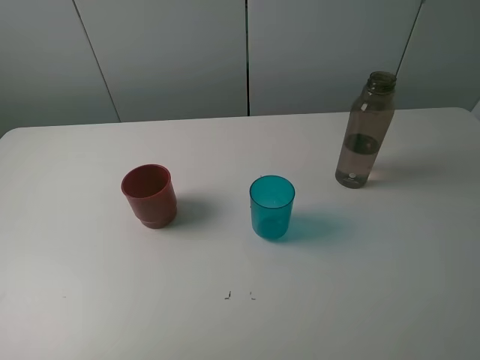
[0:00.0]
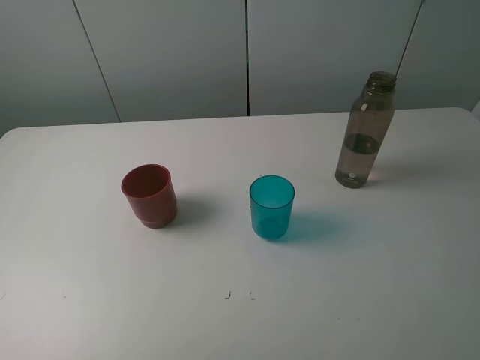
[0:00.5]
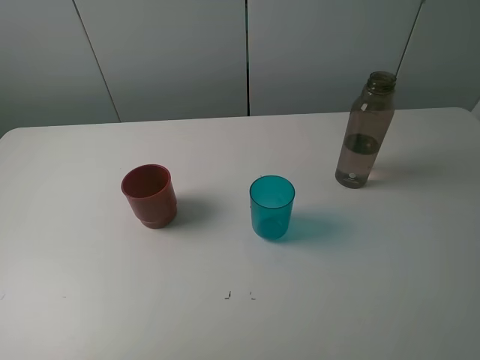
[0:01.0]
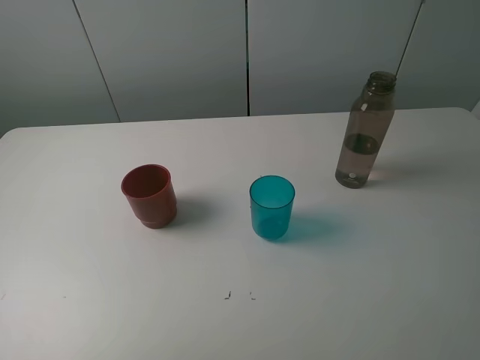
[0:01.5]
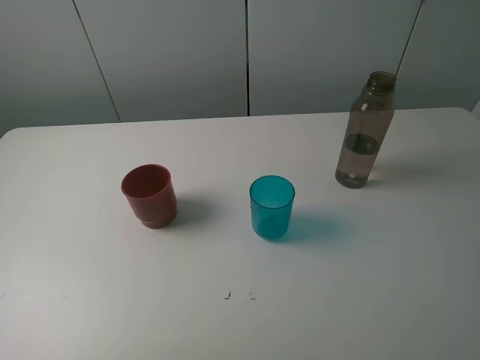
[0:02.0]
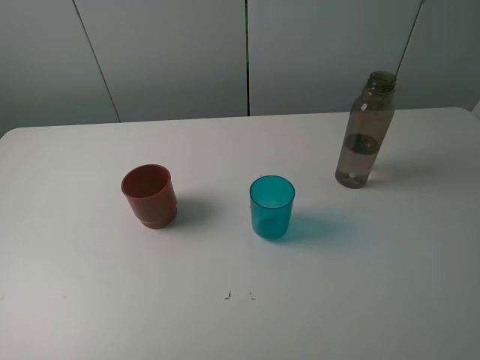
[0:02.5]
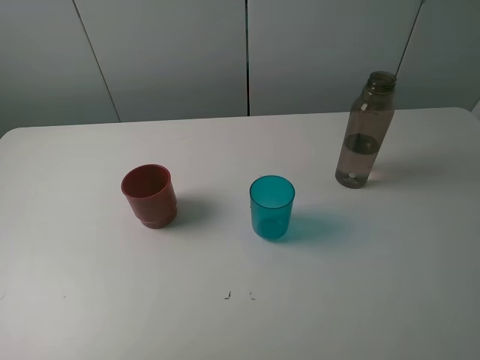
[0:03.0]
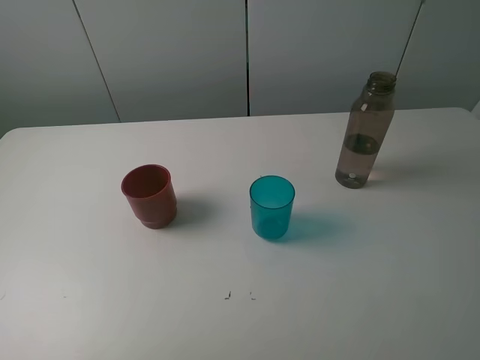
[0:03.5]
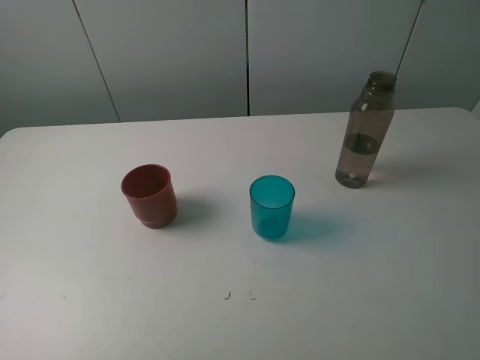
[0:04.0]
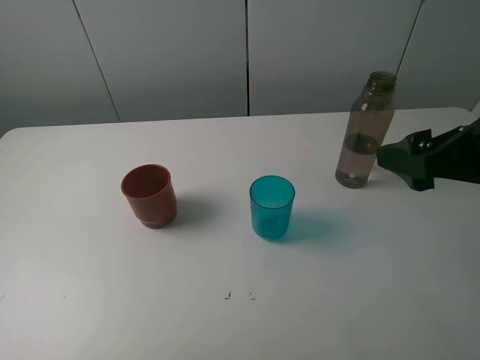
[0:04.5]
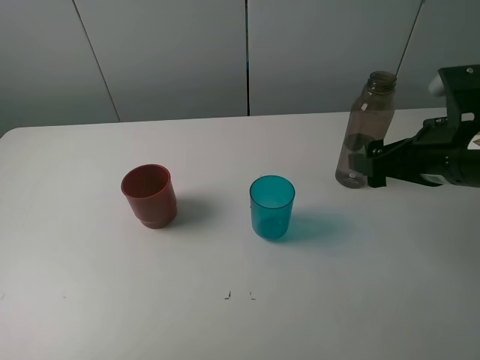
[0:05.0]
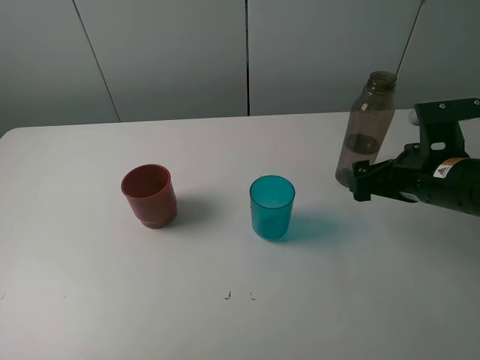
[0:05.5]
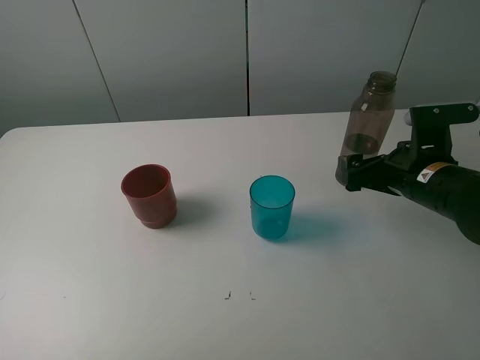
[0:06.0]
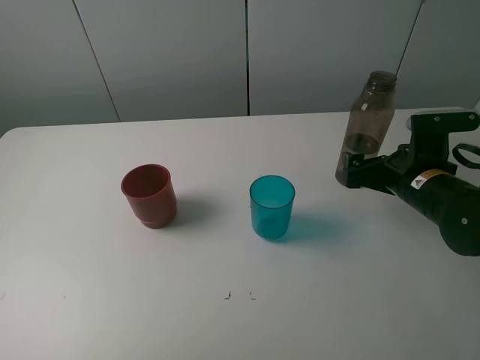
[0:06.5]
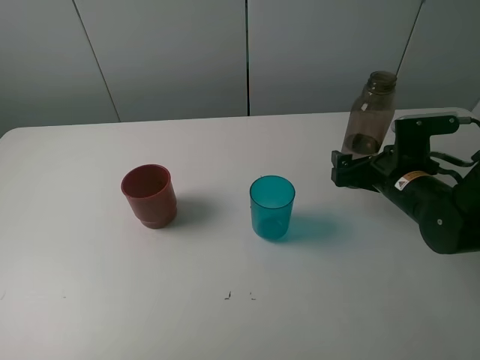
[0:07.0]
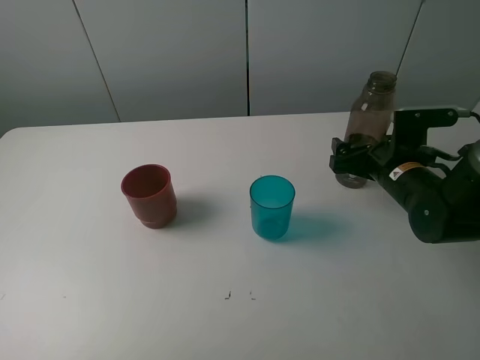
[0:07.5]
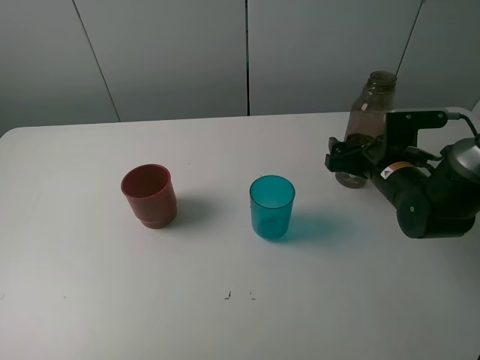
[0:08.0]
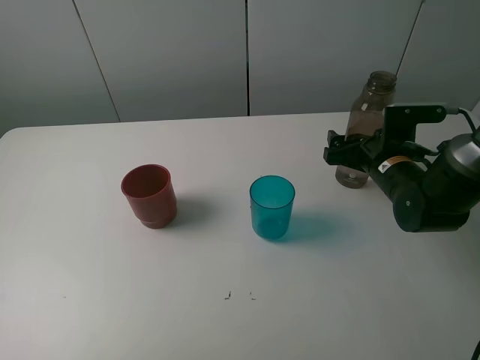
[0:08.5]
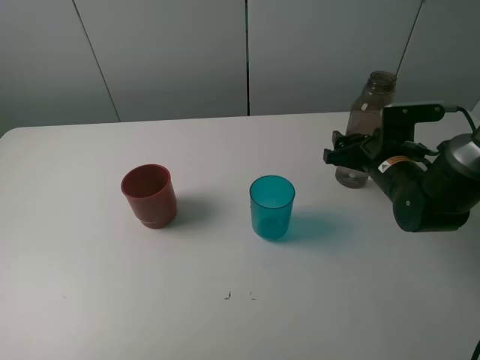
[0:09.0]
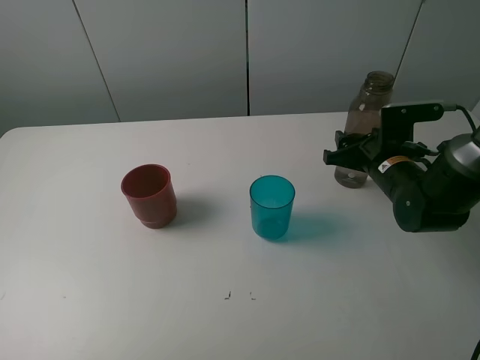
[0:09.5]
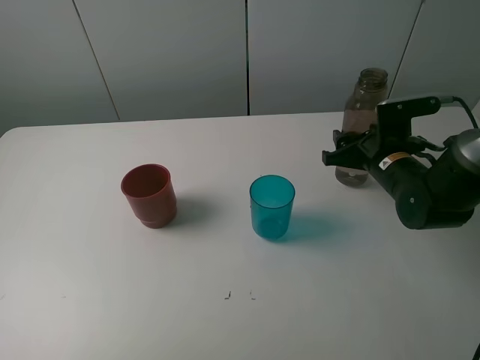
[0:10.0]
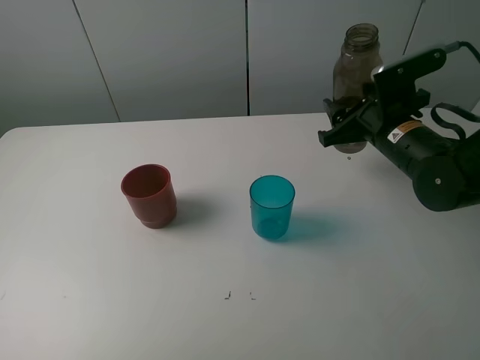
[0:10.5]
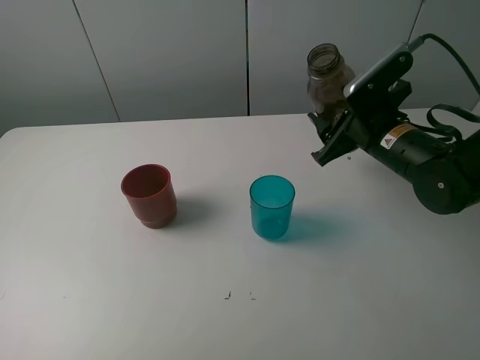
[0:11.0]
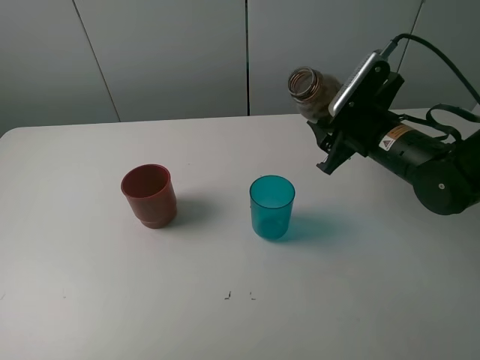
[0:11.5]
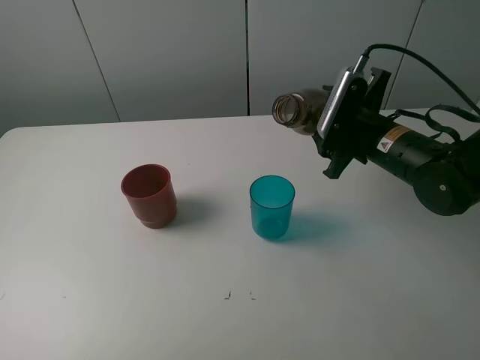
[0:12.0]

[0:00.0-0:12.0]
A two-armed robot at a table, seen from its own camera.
Task of the whole recording: pick up the bottle and pour water into the cup, then pick up the cup containing water and pour it into another cup.
Step, 0:00.0 to 0:09.0: Grasp the brown bottle with the right gripper.
0:00.0 to 0:02.0: The two grippers keep their place.
0:04.0 to 0:06.0: The right gripper moves downward and forward, some 25 cm.
0:06.0 to 0:08.0: The right gripper goes approximately 5 cm forward.
0:08.0 to 0:10.0: The right gripper closes its fingers.
0:10.0 to 0:12.0: The right gripper moves roughly 5 cm.

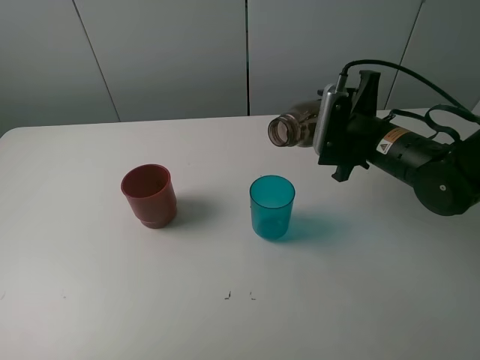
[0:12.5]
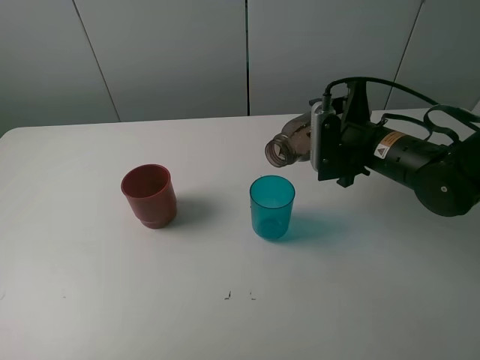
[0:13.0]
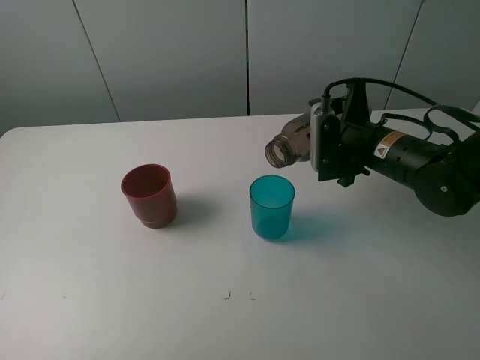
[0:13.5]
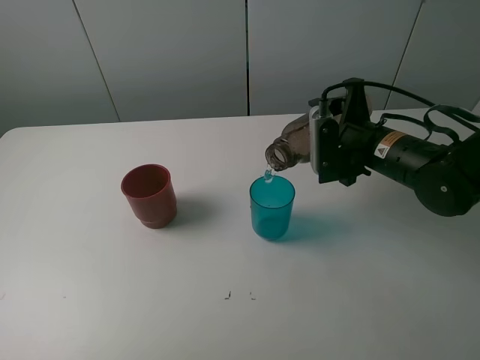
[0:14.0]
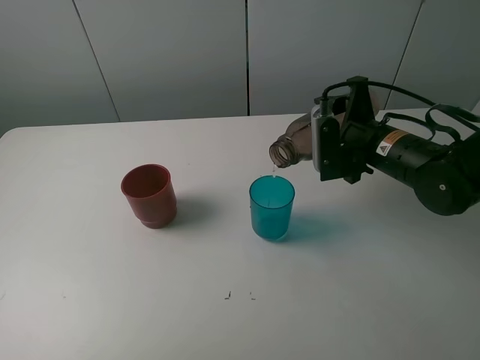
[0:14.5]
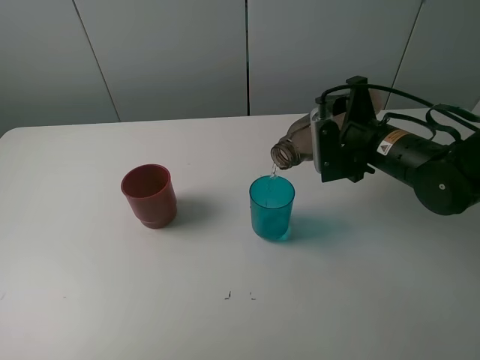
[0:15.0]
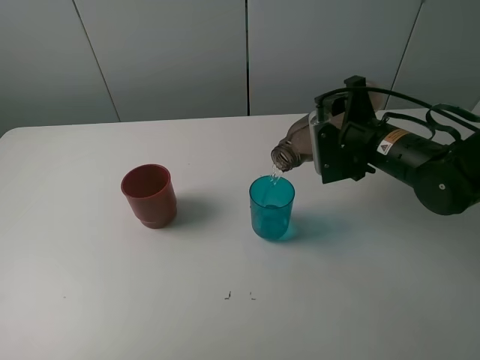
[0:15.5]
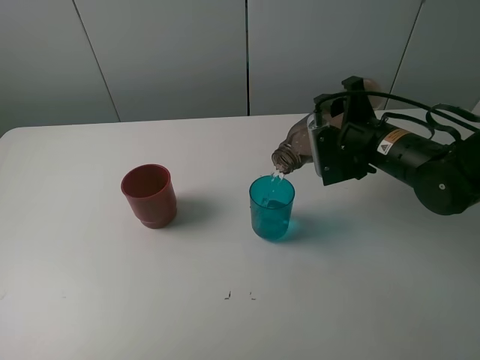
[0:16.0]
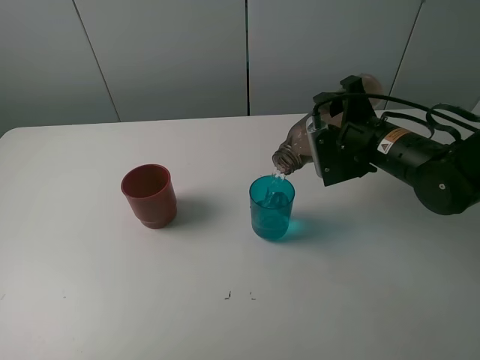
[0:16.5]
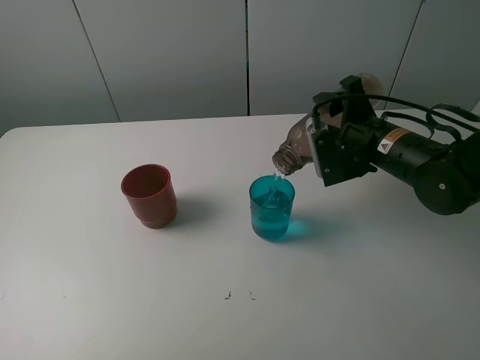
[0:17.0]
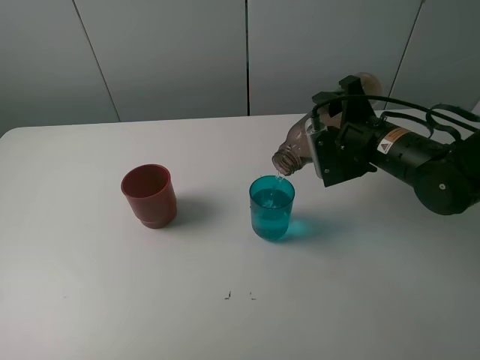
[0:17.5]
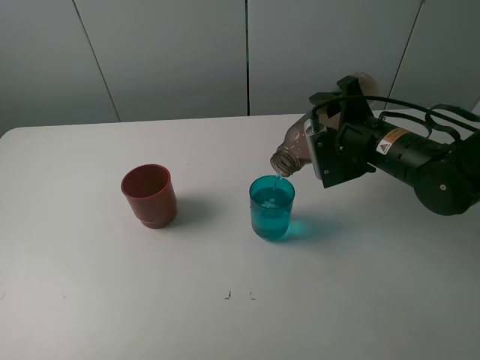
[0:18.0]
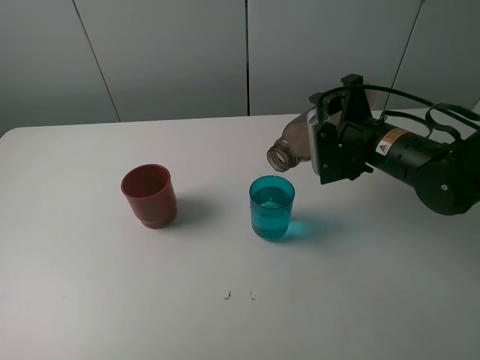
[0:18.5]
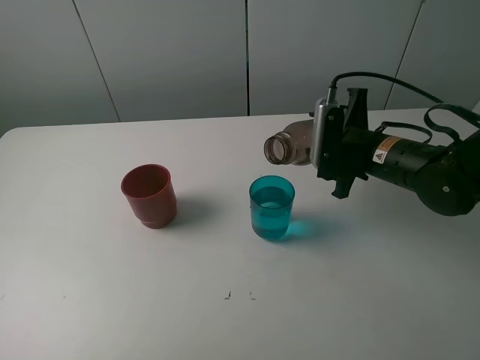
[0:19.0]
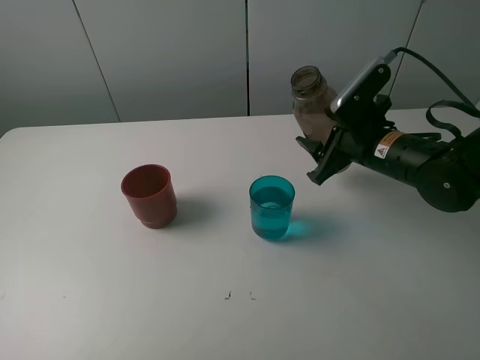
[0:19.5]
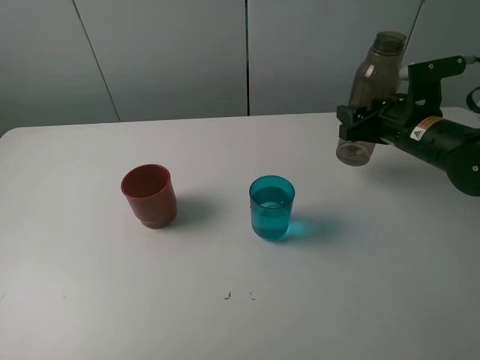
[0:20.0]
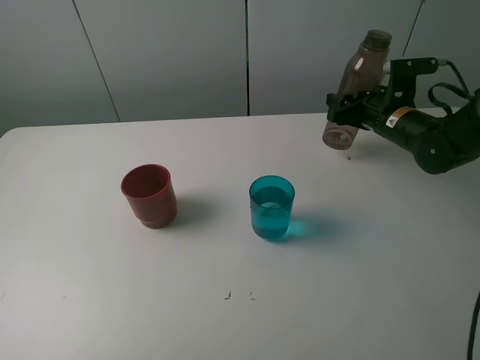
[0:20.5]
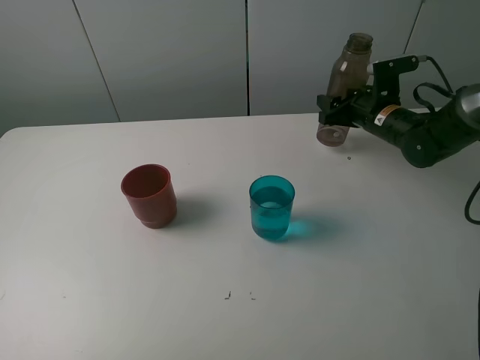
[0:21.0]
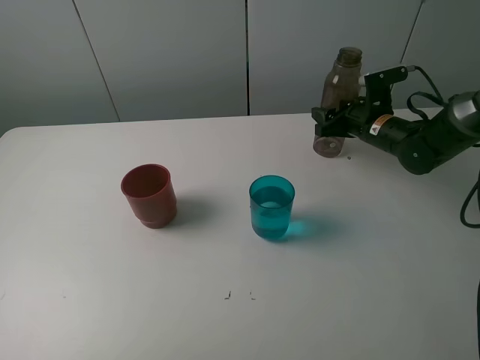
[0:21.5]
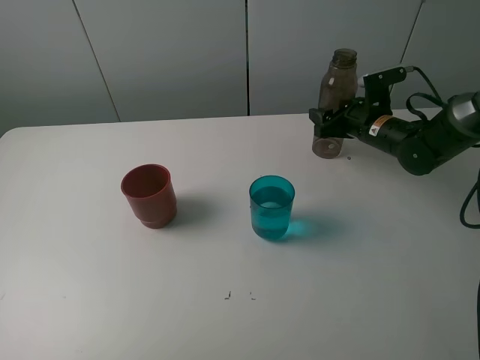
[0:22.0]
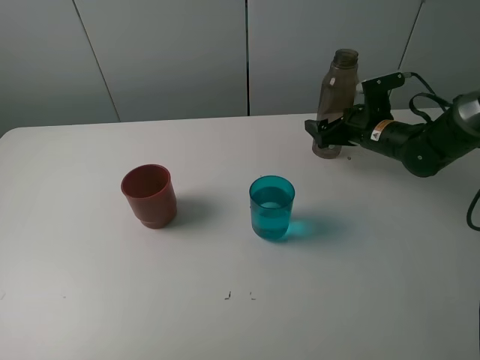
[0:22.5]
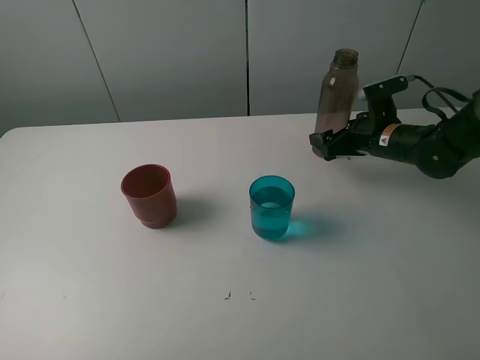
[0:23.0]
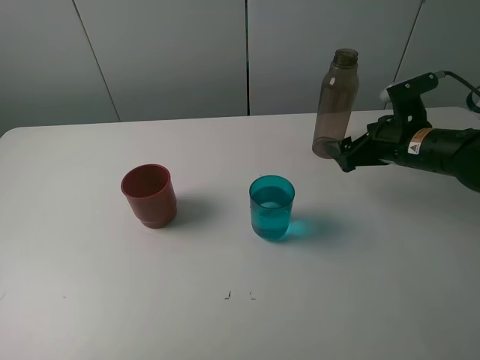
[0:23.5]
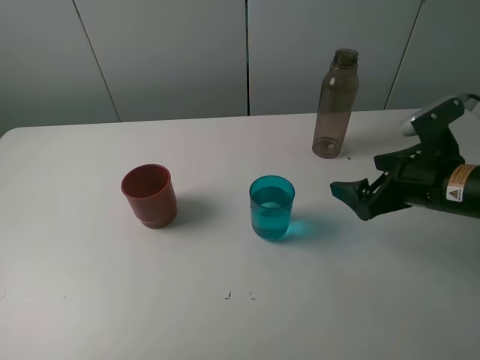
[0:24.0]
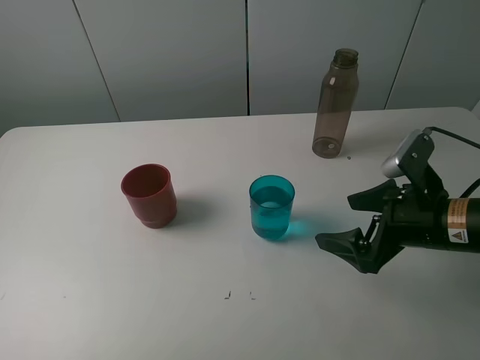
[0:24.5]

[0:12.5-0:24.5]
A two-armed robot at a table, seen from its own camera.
Task of the whole recording: pick up the bottle and pour water into the cup, then pick up the cup containing water and pour it into another cup.
Step, 0:12.5 to 0:18.5: Pour water from brown bottle to blue cup with the right gripper.
Step, 0:19.0 to 0:22.0: Place the brown bottle with the right gripper.
0:12.5 to 0:14.5: There are only small adjustments of the grippers.
0:14.5 to 0:18.5: The grippers stay close to where they were, moving slightly.
0:18.5 to 0:20.5: The right gripper shifts roughly 10 cm forward and to the right.
0:20.5 to 0:22.5: The right gripper opens.
0:22.5 to 0:24.5: The right gripper shifts roughly 20 cm backward.

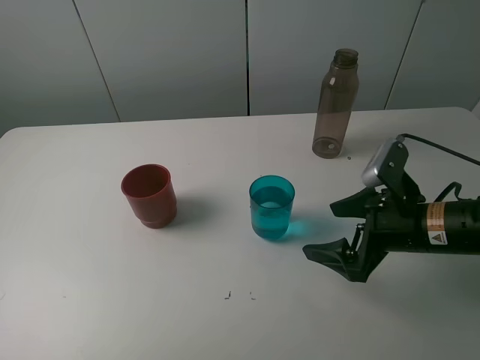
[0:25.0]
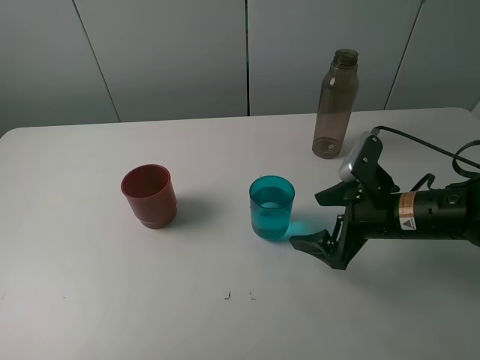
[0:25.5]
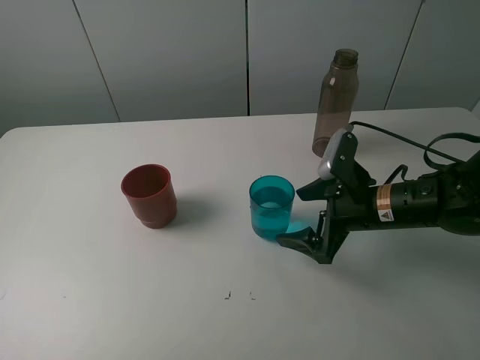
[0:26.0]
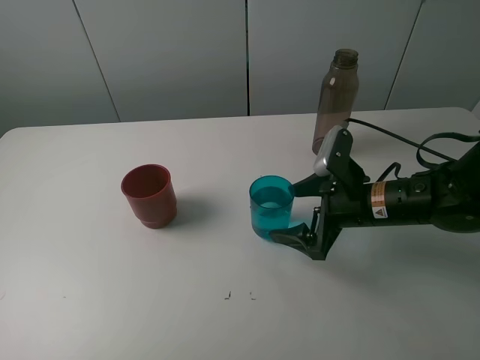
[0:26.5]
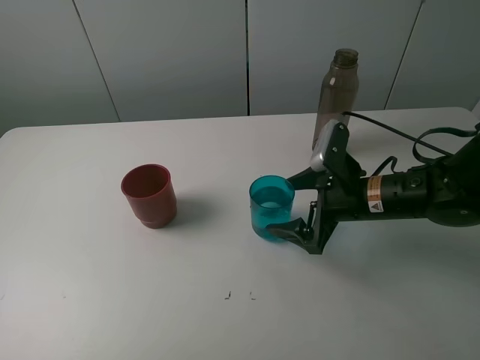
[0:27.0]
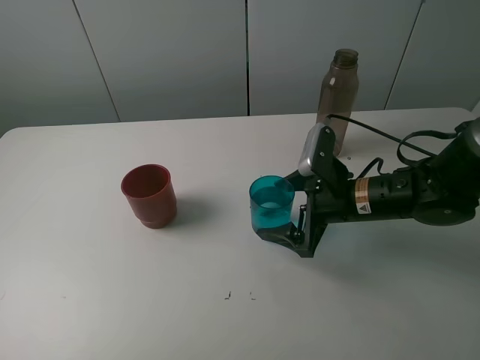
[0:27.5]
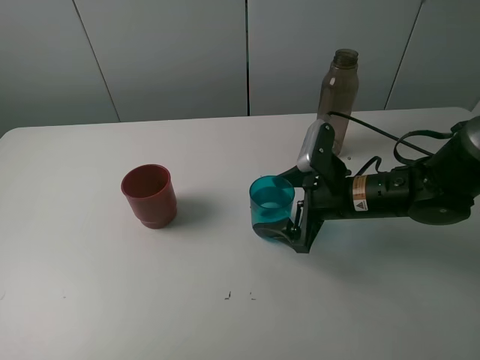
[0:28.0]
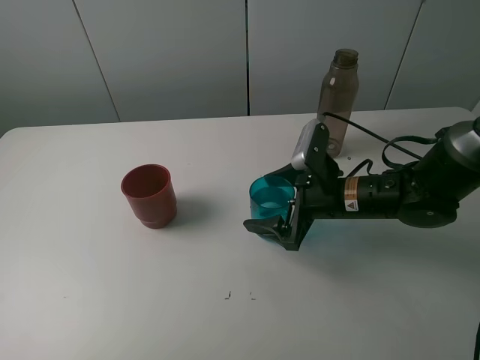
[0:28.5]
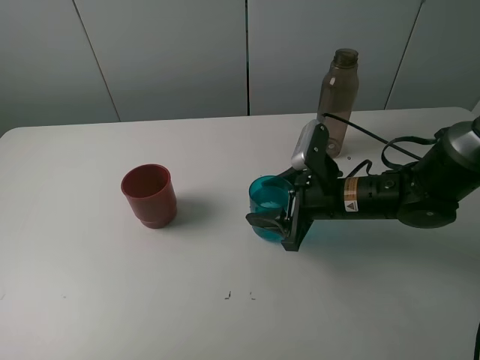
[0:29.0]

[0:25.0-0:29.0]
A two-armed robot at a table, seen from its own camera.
Task of the whole recording: pick up the bottle and pour water into the cup, then pick up the cup containing water and pour it into another cup.
0:25.0 to 0:27.0: The right gripper goes roughly 5 cm forward.
0:27.0 to 0:29.0: The right gripper closes.
